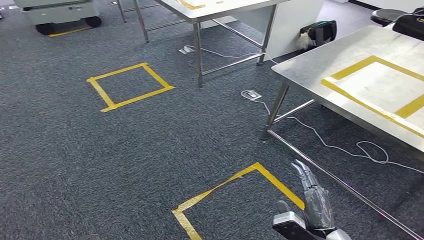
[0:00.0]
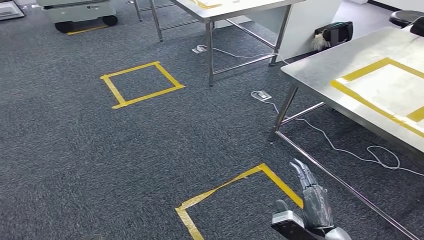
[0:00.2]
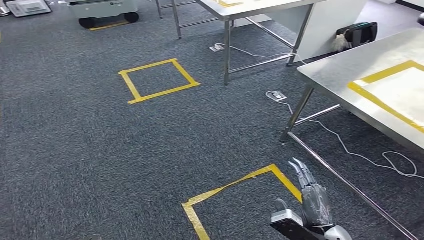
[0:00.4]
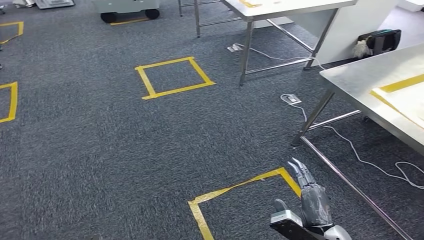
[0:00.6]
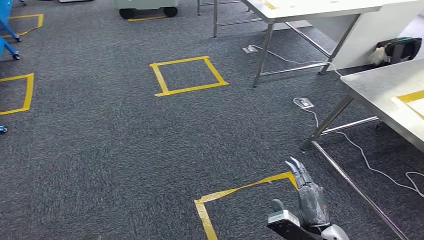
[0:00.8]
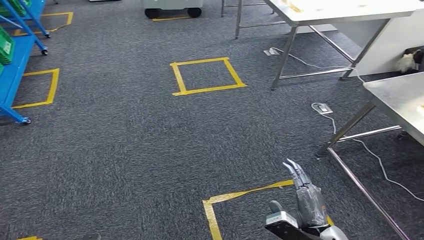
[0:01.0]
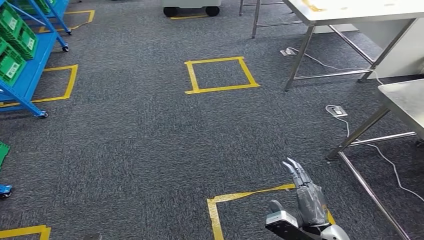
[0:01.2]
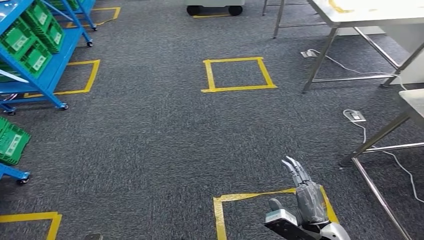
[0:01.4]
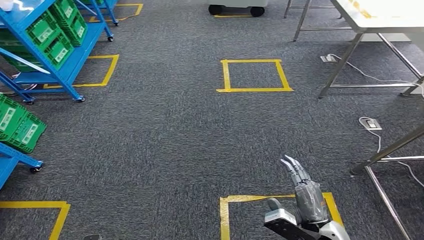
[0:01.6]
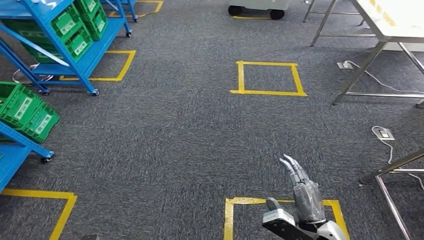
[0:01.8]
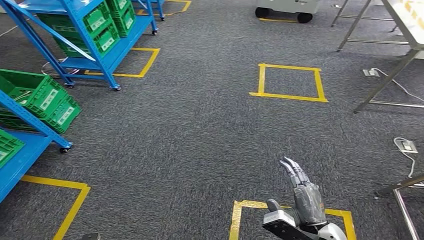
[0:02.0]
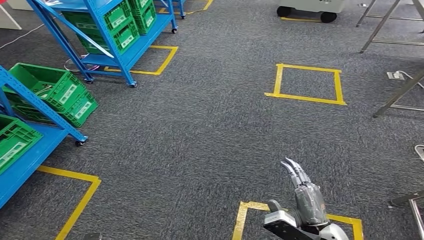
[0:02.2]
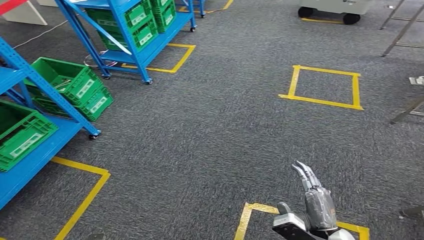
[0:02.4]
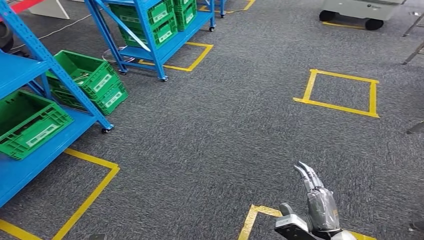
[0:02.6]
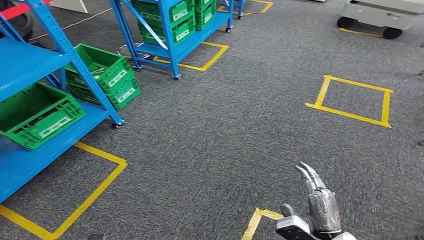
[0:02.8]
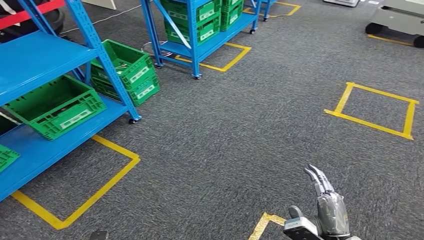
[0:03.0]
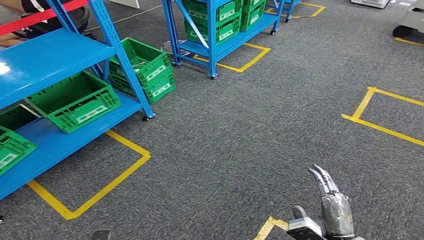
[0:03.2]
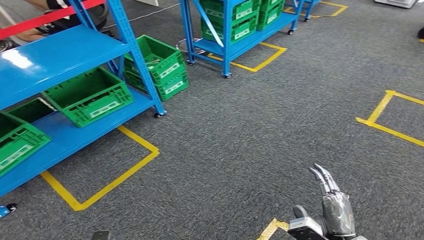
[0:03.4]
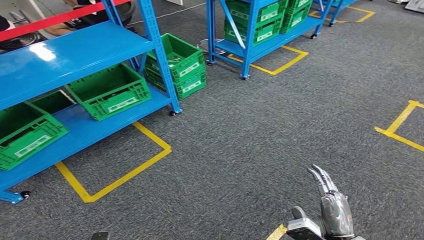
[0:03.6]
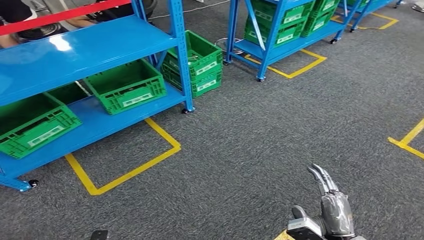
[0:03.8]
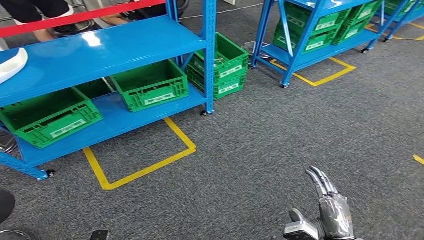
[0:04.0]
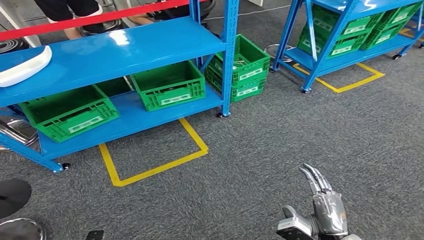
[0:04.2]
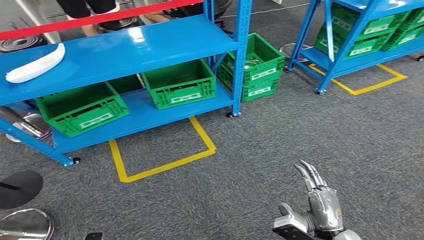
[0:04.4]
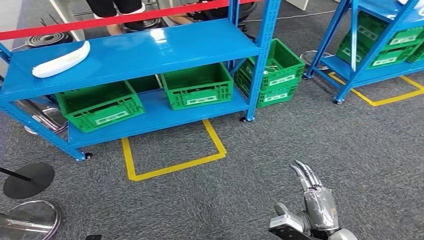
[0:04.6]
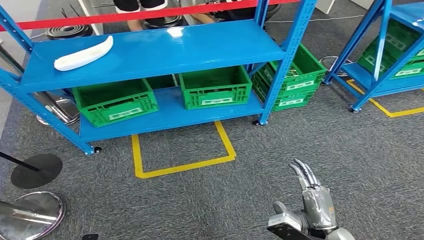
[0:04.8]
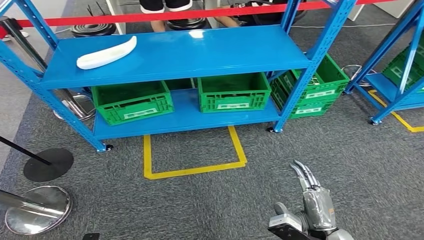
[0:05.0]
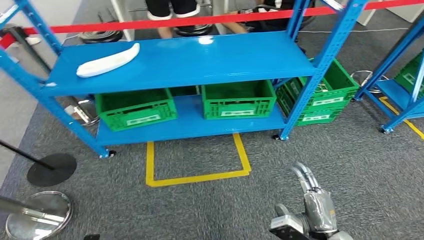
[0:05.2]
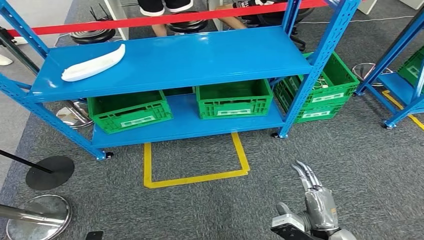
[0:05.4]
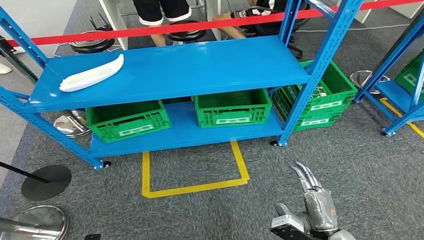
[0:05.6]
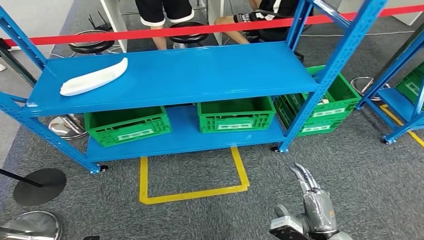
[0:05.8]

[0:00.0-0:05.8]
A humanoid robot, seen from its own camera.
Step, 0:00.0 to 0:05.8: Return to the initial position at the workbench.
